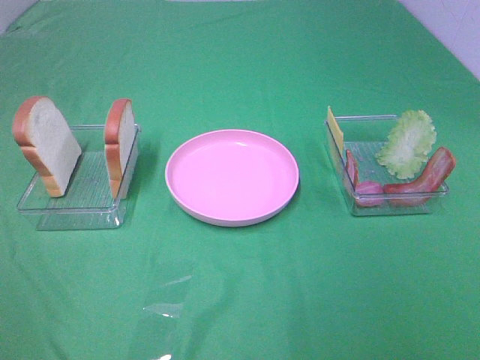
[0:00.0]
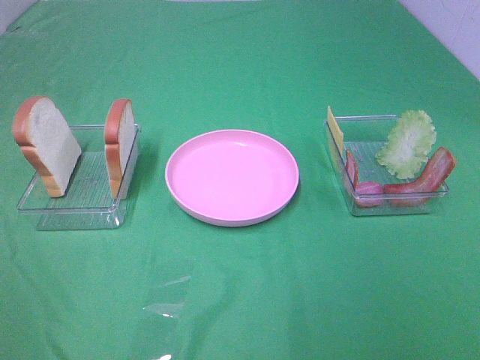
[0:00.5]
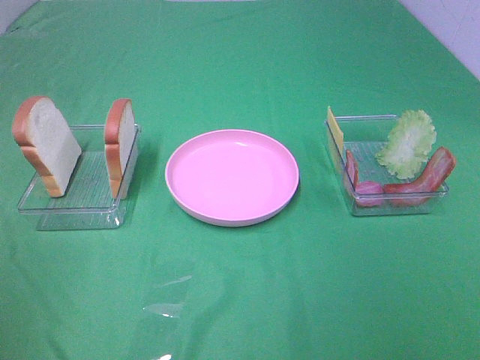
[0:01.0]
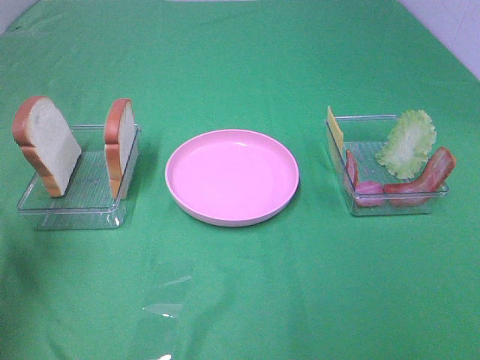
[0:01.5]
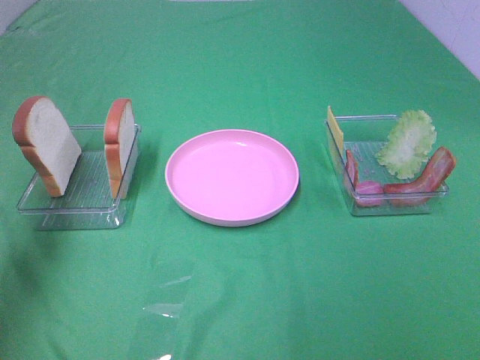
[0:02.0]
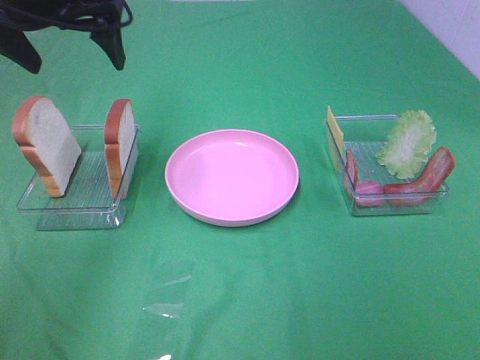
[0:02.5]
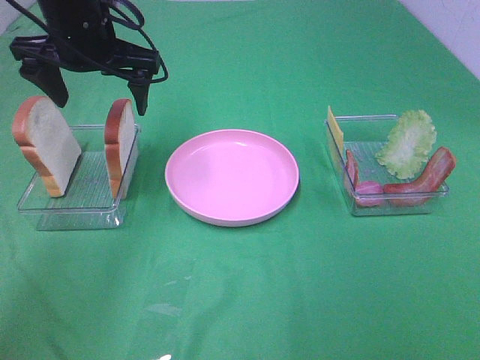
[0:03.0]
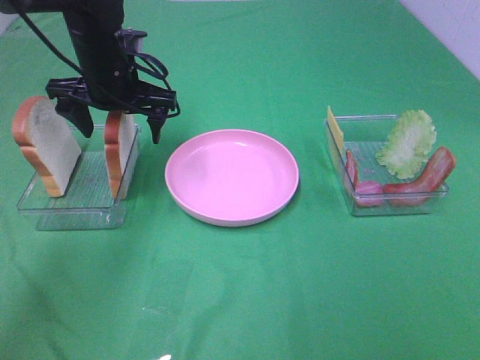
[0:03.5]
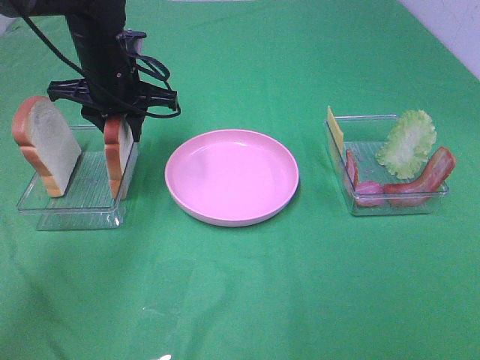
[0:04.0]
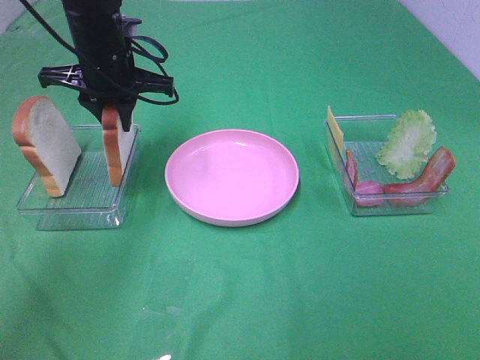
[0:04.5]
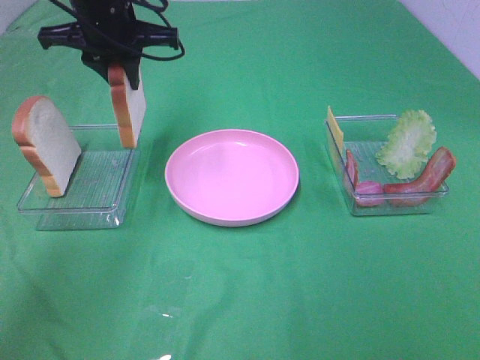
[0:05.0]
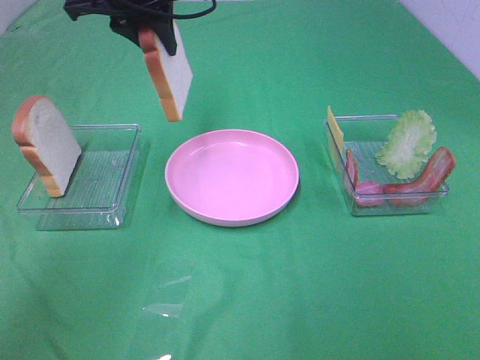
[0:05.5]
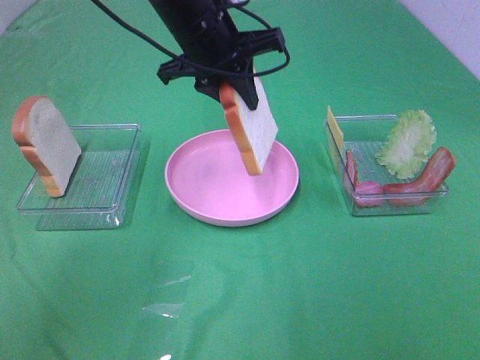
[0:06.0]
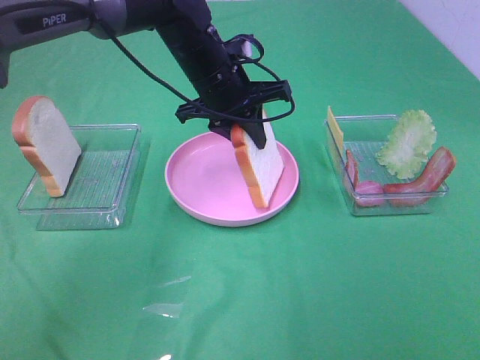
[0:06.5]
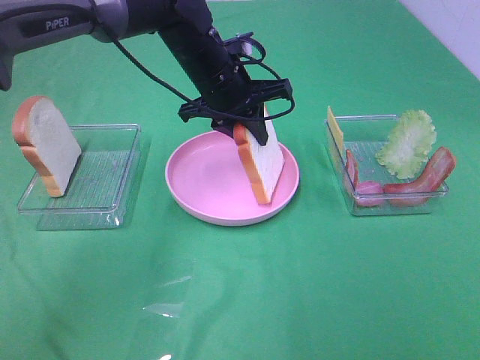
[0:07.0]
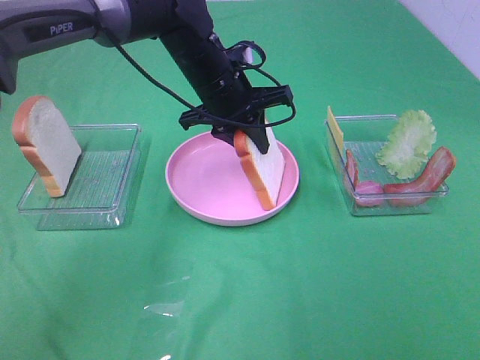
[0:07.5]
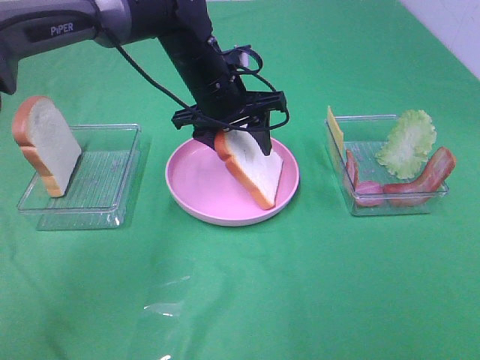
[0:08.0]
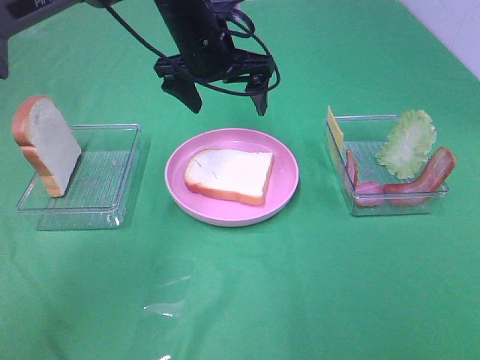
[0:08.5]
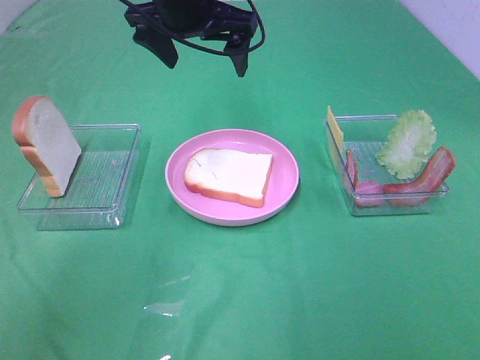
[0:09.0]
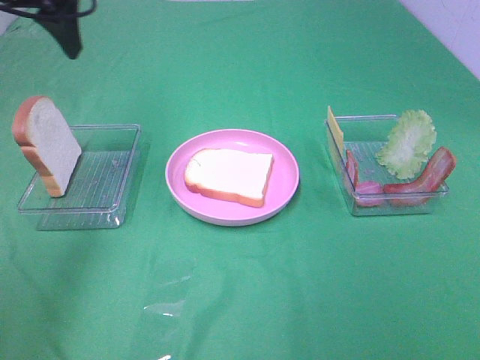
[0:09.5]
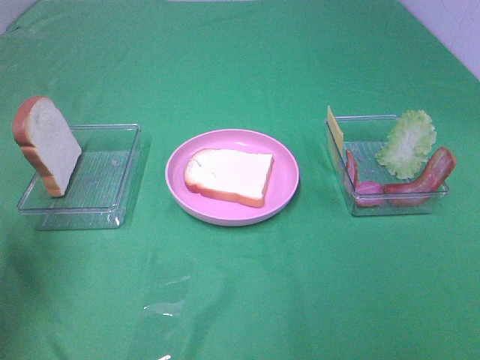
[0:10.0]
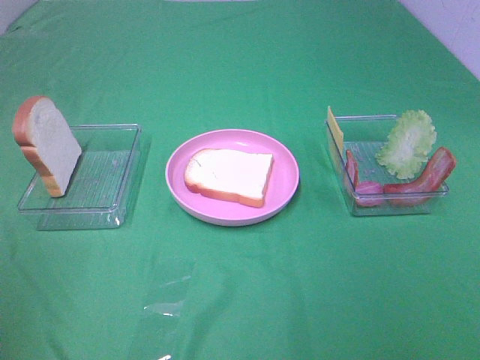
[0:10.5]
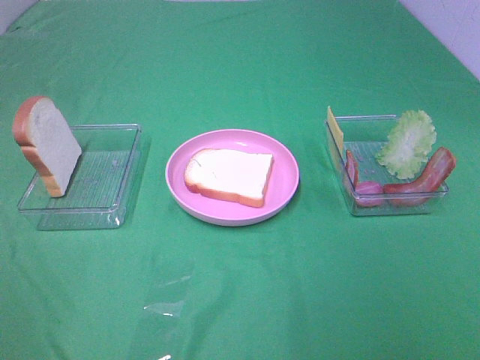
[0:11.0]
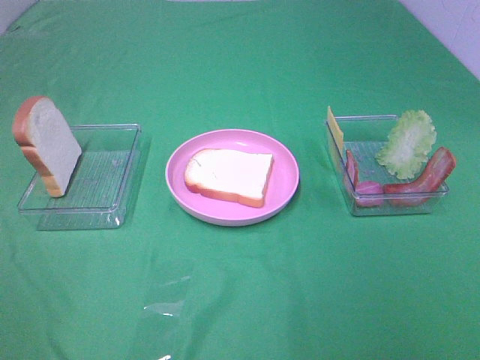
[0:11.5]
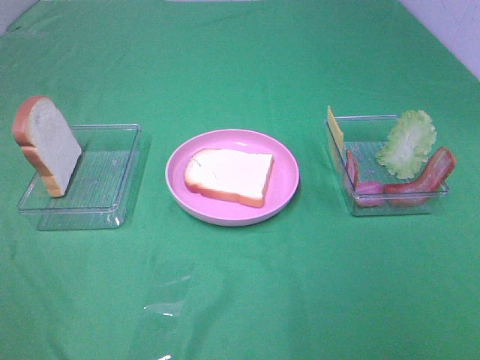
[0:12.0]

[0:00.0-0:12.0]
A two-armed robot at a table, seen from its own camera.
Task of the whole recording: Make sandwiches.
Step, 0:00.0 to 0:04.0: Left hand:grab the bread slice.
Step, 0:04.5 to 0:08.5: Left hand:place the bread slice on the plate.
0:00.0 to 0:02.0: The left gripper travels forward by approximately 35 cm.
0:02.0 to 0:04.0: The left gripper goes about 25 cm downward, to the right and forward, and closes up.
0:04.0 to 0:06.0: The left gripper is displaced to the right and upward by about 10 cm.
0:06.0 to 0:08.0: The left gripper moves downward, approximately 5 cm, and opens.
0:08.0 to 0:10.0: The left gripper shifts about 40 cm to the left, backward and upward, and opens up.
0:10.0 to 0:12.0: The left gripper travels backward by roughly 20 cm.

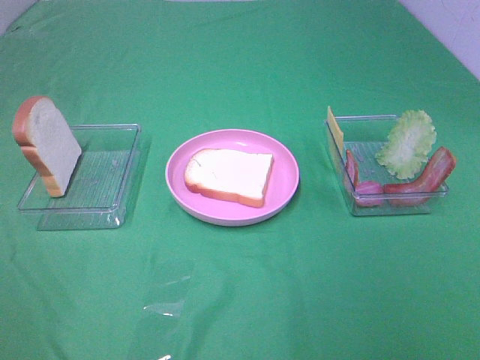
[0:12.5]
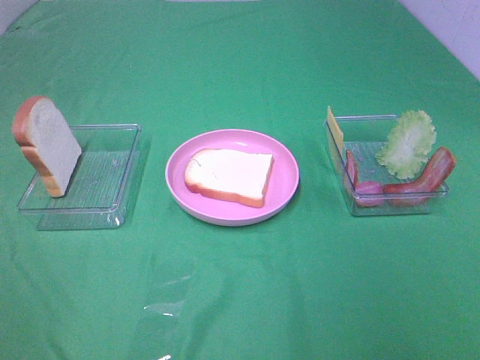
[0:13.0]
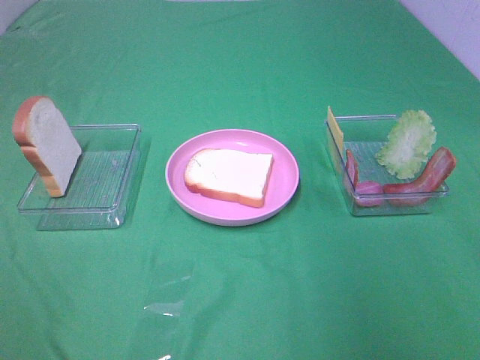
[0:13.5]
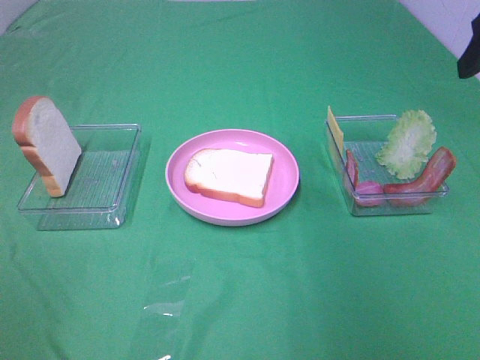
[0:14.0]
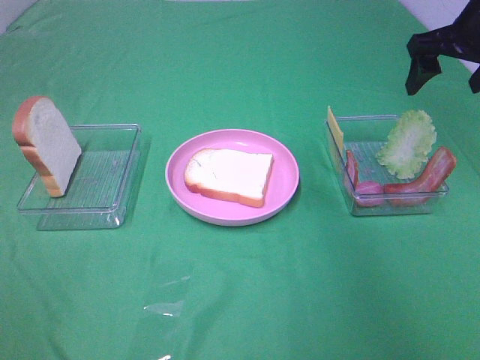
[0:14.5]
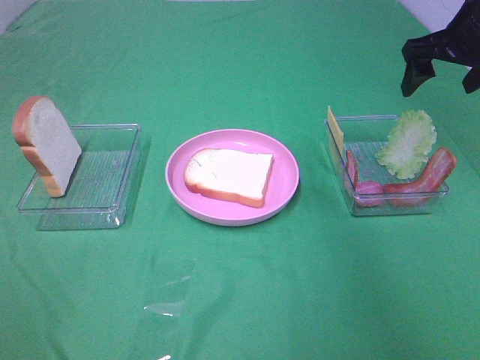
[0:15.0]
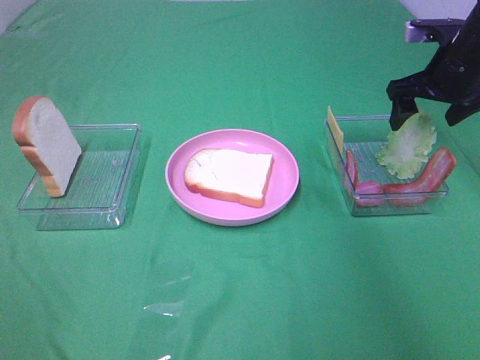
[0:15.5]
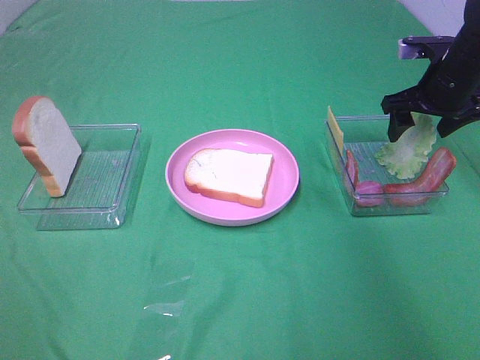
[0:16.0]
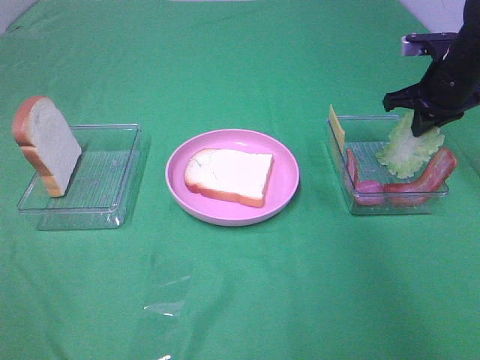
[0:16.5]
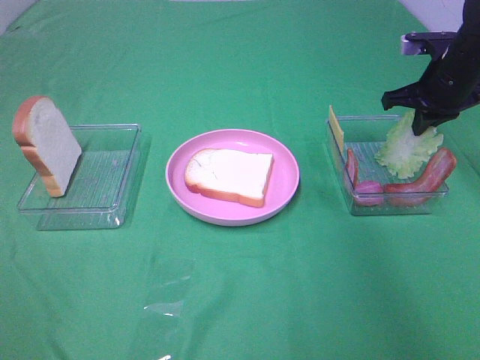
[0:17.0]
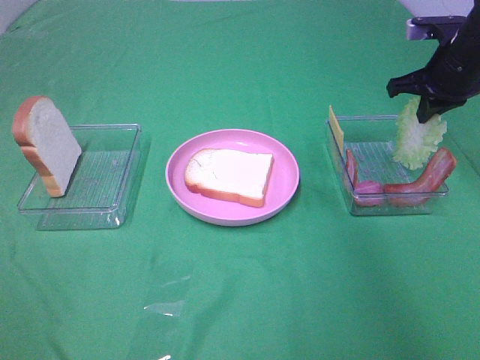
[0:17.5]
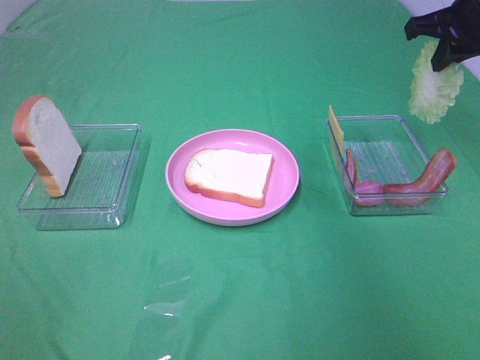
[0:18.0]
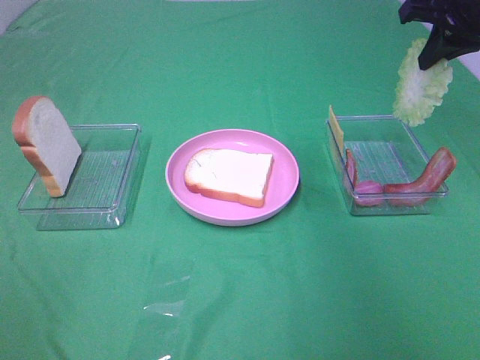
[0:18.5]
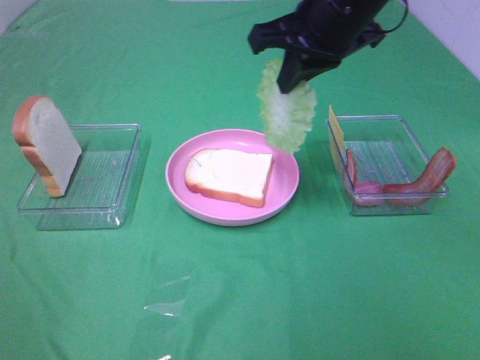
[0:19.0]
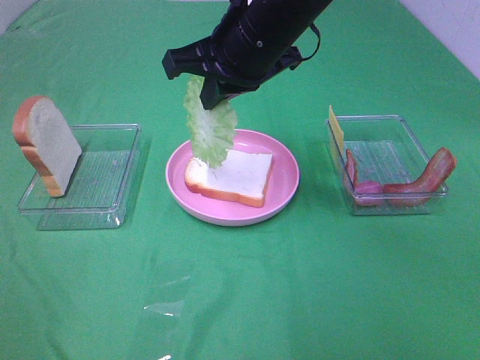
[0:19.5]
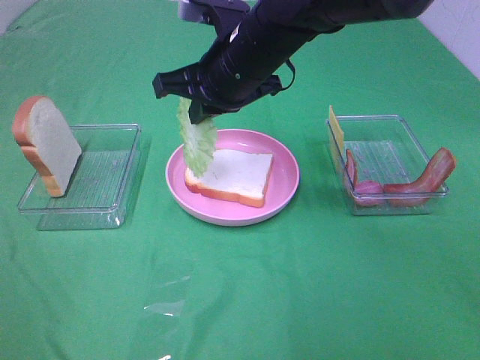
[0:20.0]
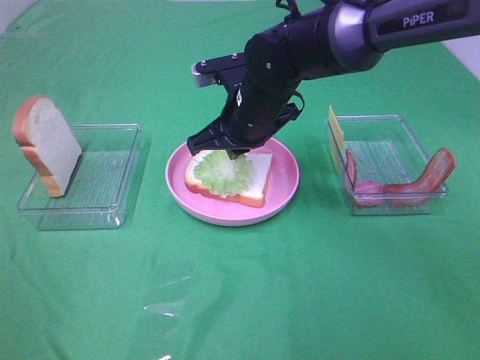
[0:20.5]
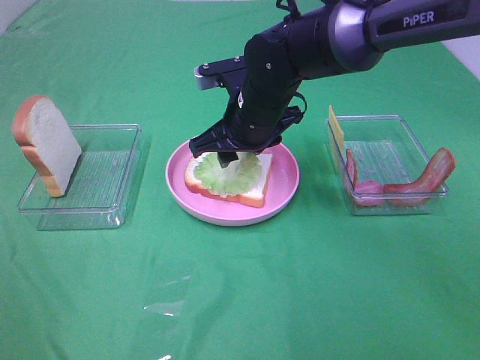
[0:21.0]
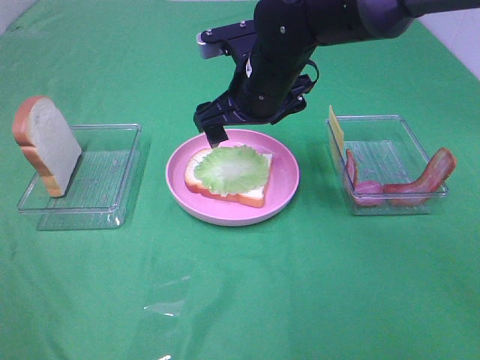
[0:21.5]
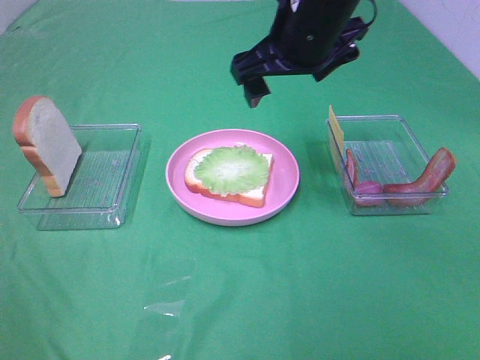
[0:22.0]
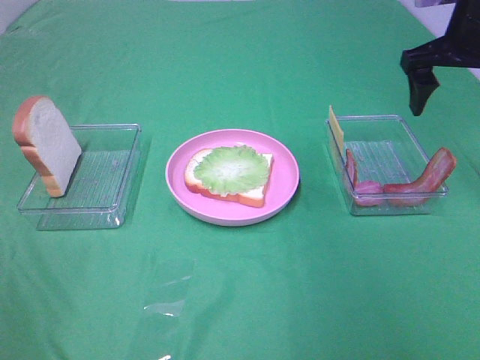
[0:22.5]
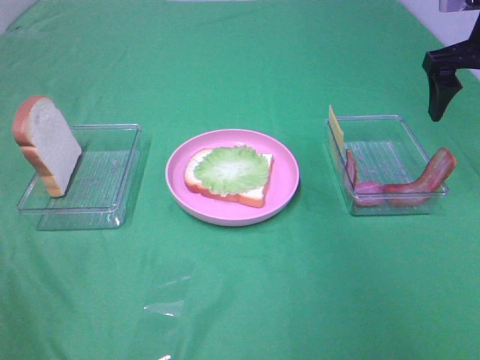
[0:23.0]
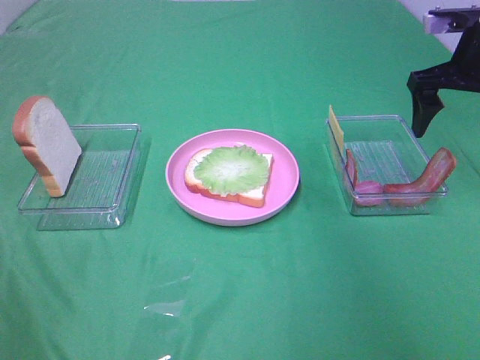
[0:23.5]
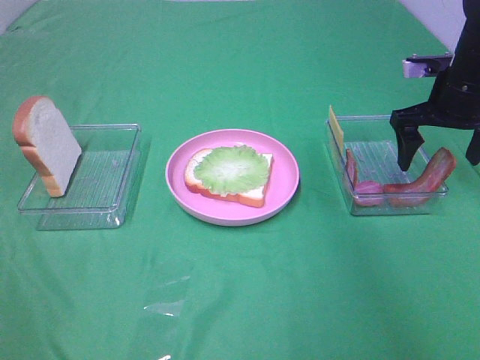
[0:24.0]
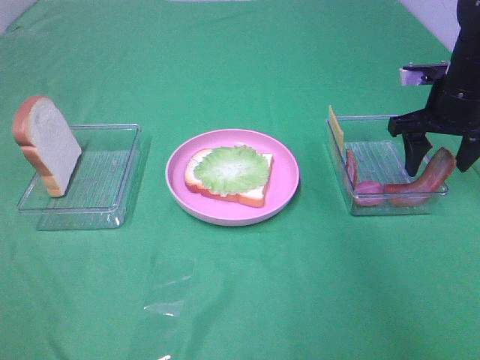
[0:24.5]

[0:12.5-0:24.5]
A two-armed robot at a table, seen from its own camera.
Task of the whole recording: Make sandwiches.
Step, 0:12.5 to 0:16.5: Right hand:grab the lettuce slice.
Step, 0:17.0 to 0:21.0: Right hand:place the lettuce slice on the bread slice.
0:12.5 to 0:14.5: The right gripper is displaced forward by approximately 40 cm.
0:14.5 to 0:16.5: The right gripper travels downward by about 10 cm, and closes its fingers.
0:16.5 to 0:18.5: The right gripper heads upward, covering roughly 10 cm.
0:18.5 to 0:20.5: The right gripper is displaced to the left and downward by roughly 30 cm.
0:20.5 to 0:22.5: The right gripper is displaced to the right and upward by roughly 25 cm, and opens.
0:22.5 to 0:24.5: The right gripper shifts roughly 10 cm downward.

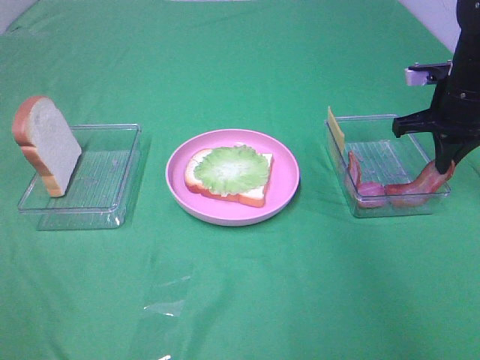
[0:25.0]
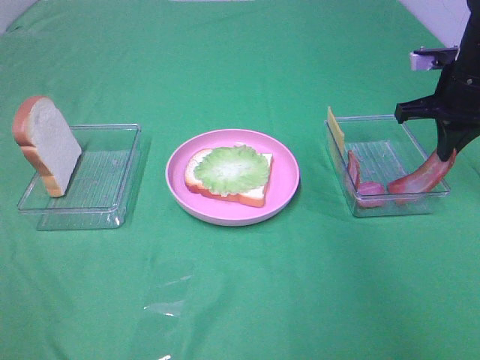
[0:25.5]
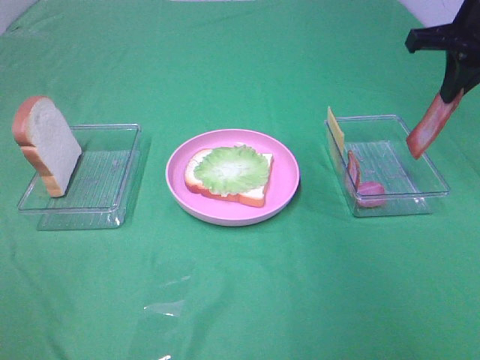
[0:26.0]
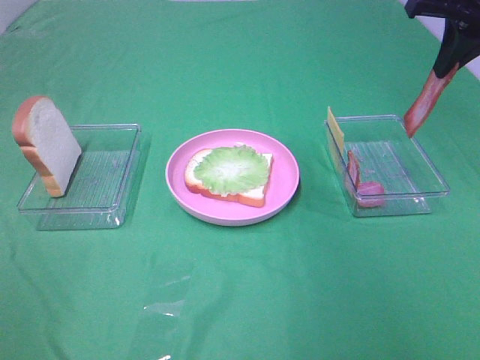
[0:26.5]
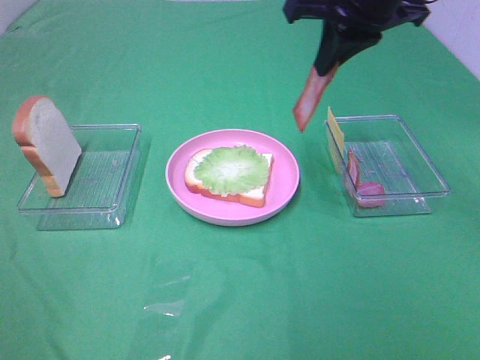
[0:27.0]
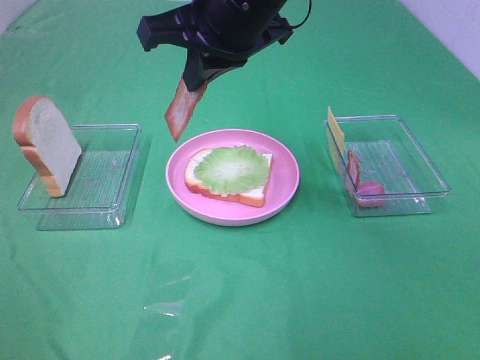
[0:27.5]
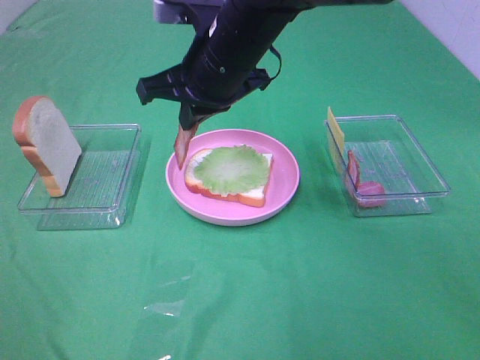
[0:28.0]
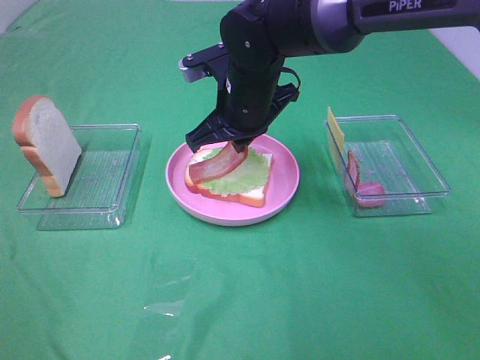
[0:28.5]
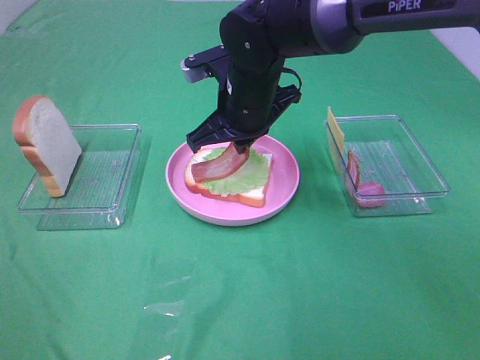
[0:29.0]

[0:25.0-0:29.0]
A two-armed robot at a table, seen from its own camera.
Task of the whole recording: Make sandwiches.
0:25.0 to 0:27.0: The right gripper goes approximately 20 cm to the left and upward.
0:27.0 to 0:29.0: The right gripper goes about 20 cm downward and to the left.
